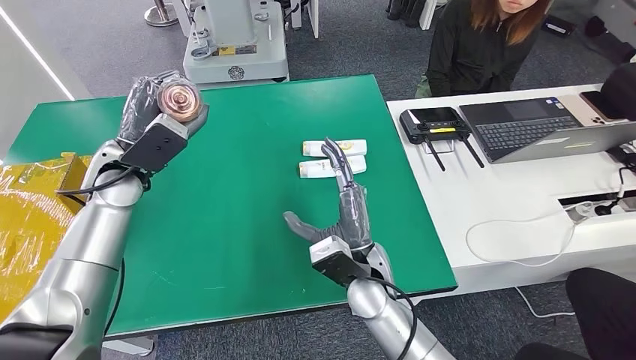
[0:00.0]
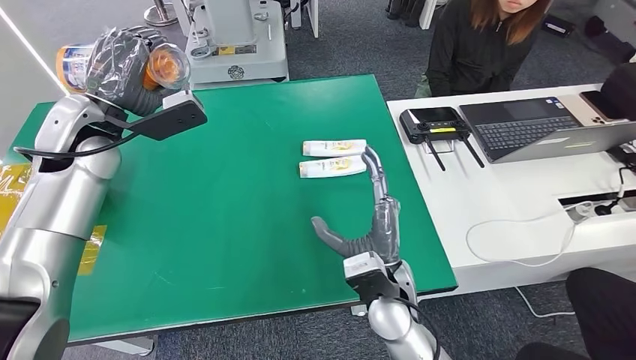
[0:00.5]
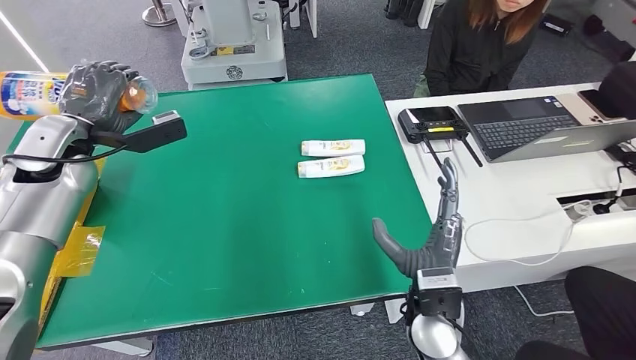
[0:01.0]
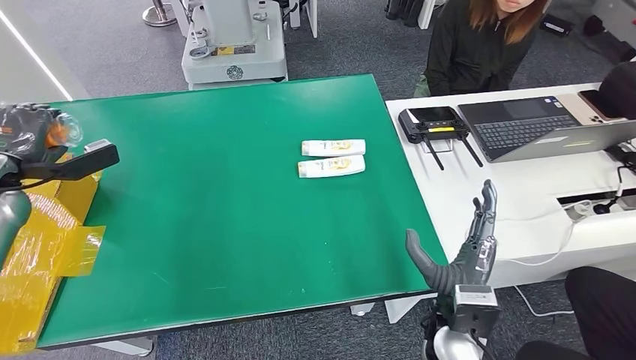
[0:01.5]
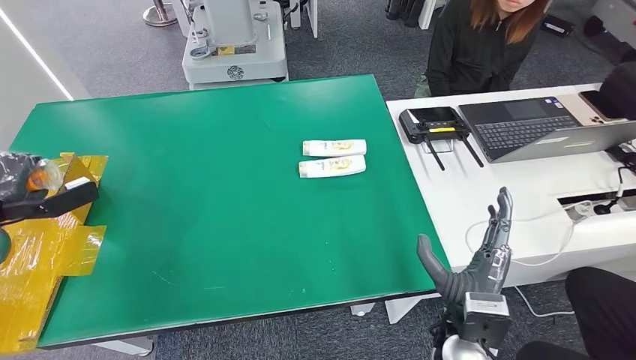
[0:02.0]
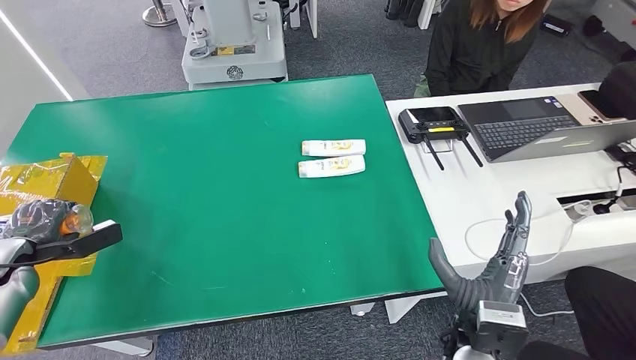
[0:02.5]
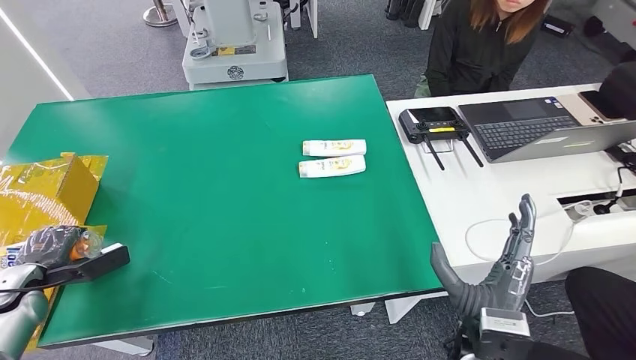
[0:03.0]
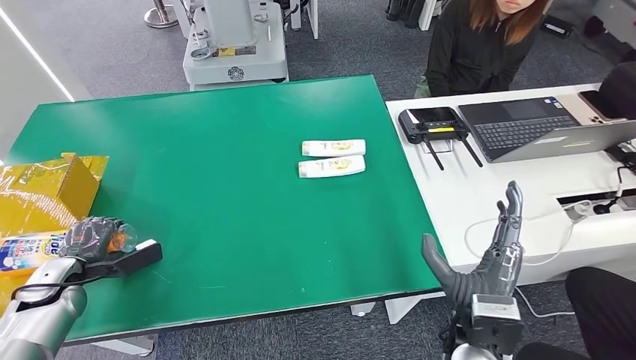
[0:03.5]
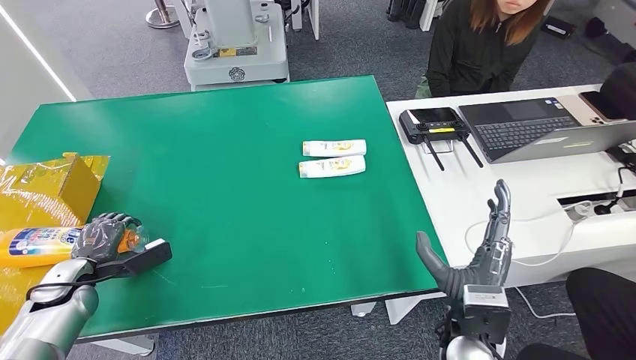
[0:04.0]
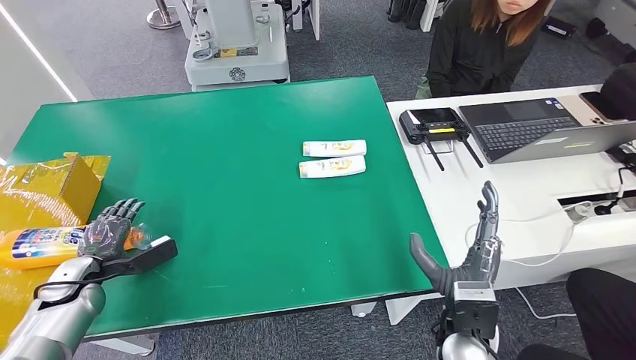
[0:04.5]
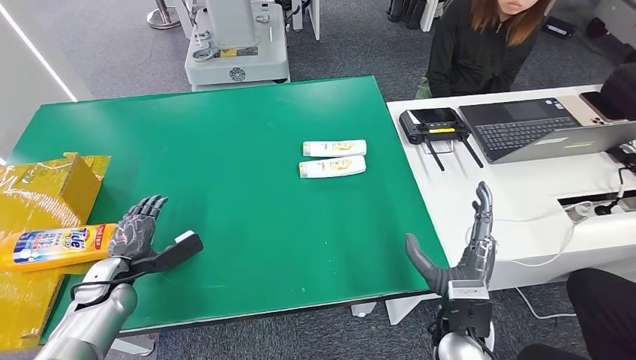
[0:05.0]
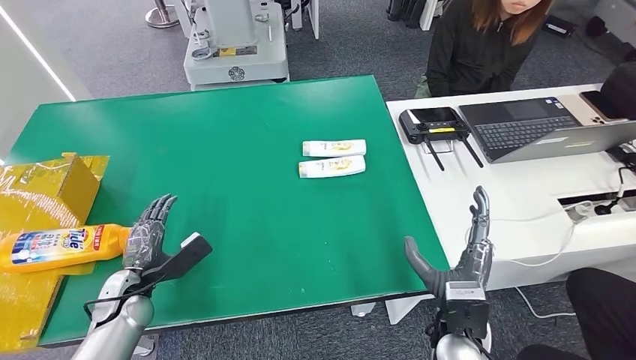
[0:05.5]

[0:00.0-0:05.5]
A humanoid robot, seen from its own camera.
Step, 0:00.0 to 0:05.5: Turn the bottle to the front side.
0:02.0 to 0:03.5: The left hand heads downward, to the right and backward, covering some 15 cm.
0:03.5 to 0:05.5: The left hand heads to the right, covering roughly 15 cm.
